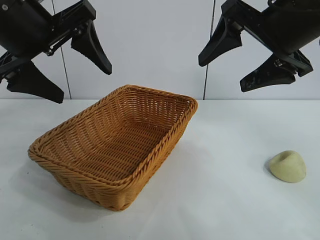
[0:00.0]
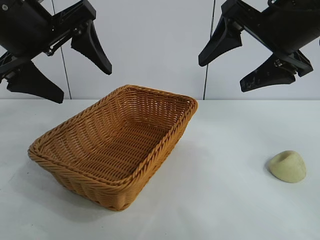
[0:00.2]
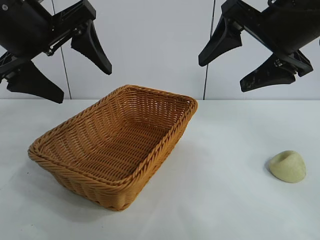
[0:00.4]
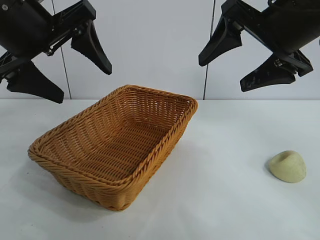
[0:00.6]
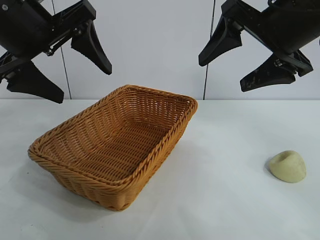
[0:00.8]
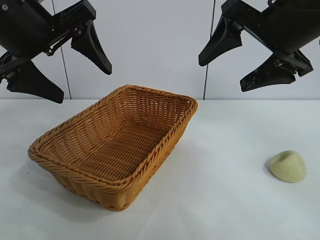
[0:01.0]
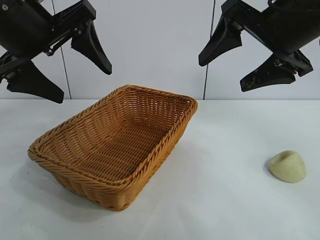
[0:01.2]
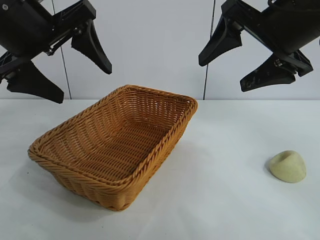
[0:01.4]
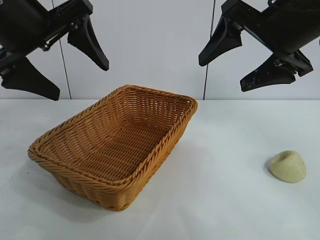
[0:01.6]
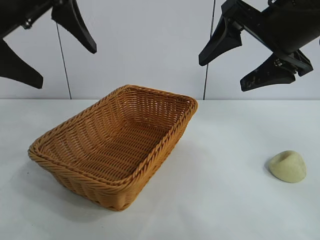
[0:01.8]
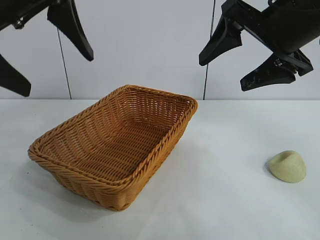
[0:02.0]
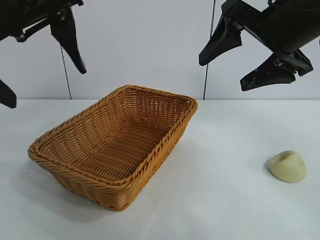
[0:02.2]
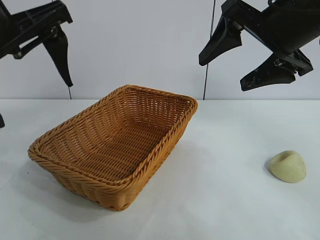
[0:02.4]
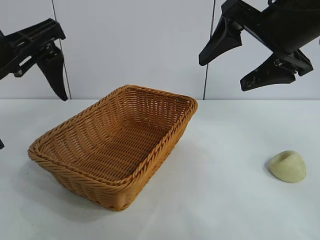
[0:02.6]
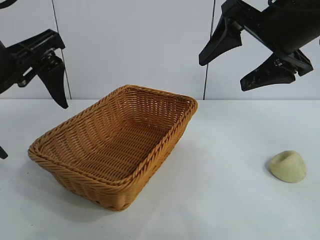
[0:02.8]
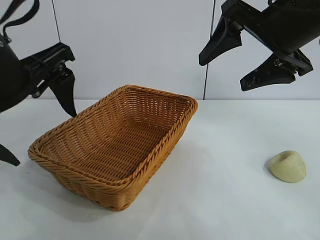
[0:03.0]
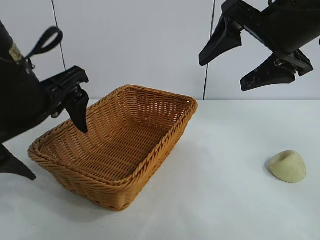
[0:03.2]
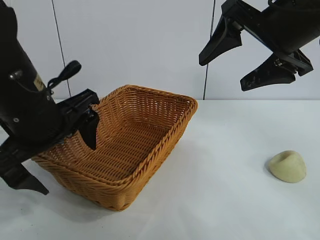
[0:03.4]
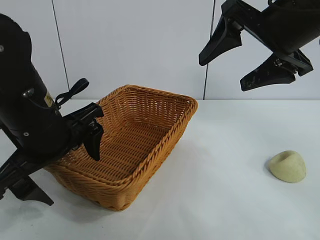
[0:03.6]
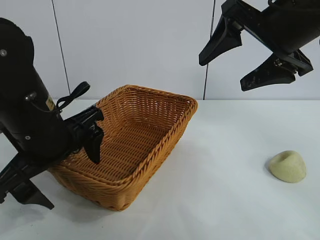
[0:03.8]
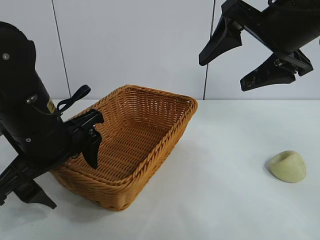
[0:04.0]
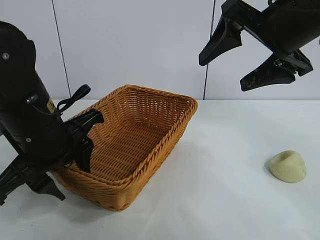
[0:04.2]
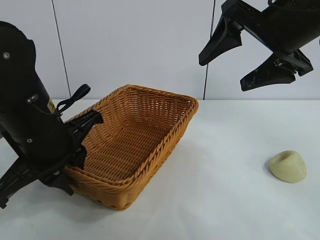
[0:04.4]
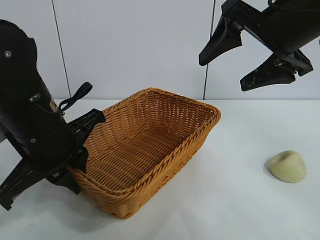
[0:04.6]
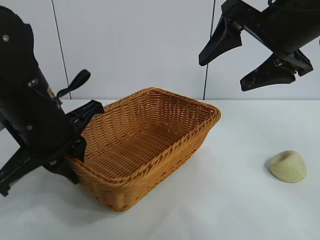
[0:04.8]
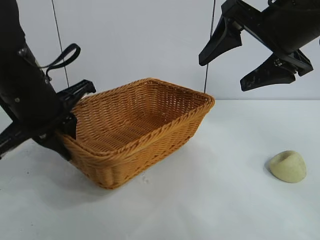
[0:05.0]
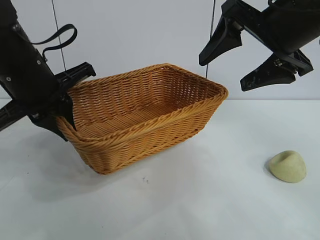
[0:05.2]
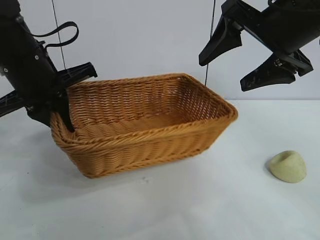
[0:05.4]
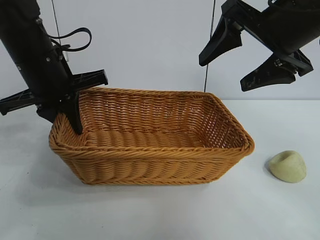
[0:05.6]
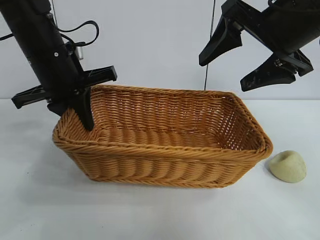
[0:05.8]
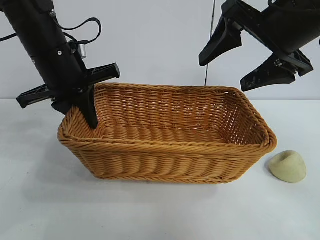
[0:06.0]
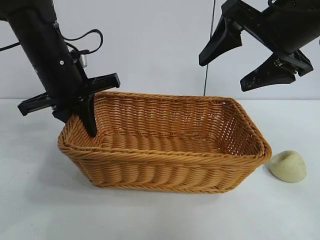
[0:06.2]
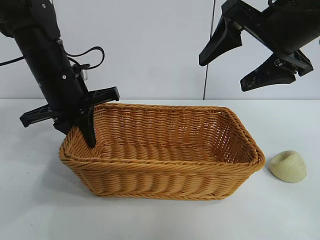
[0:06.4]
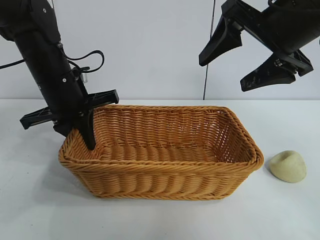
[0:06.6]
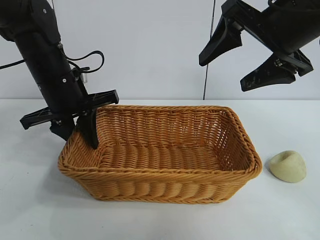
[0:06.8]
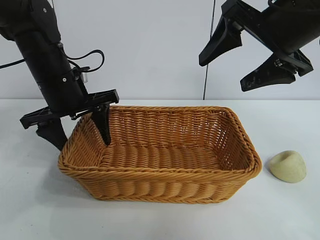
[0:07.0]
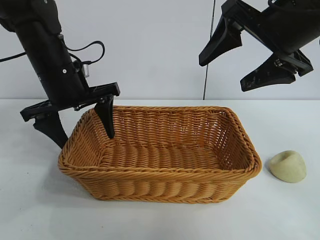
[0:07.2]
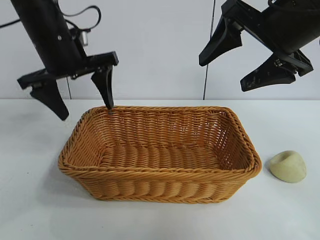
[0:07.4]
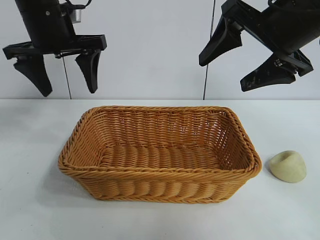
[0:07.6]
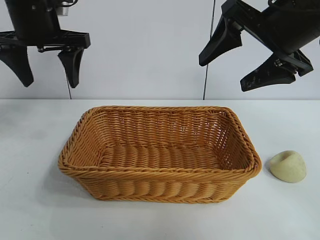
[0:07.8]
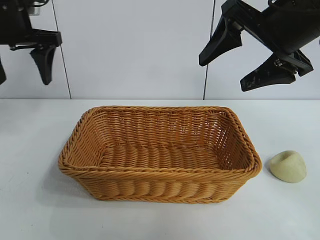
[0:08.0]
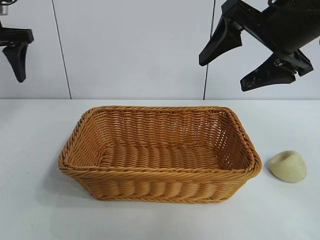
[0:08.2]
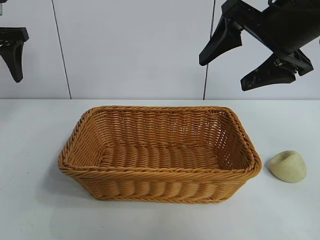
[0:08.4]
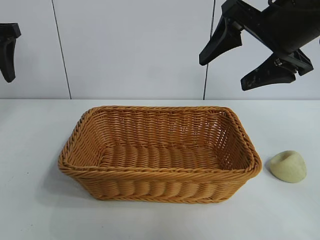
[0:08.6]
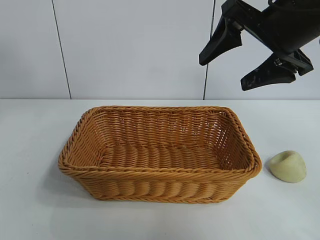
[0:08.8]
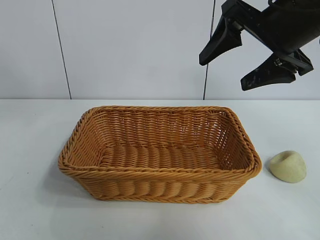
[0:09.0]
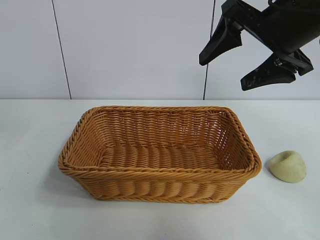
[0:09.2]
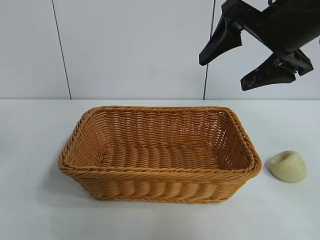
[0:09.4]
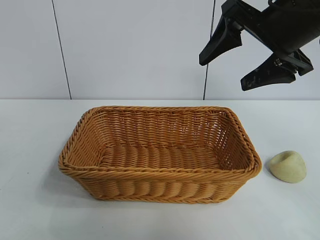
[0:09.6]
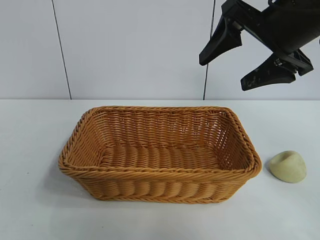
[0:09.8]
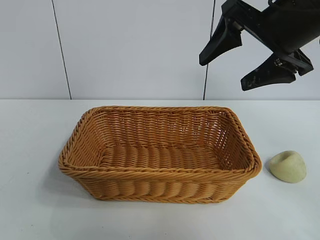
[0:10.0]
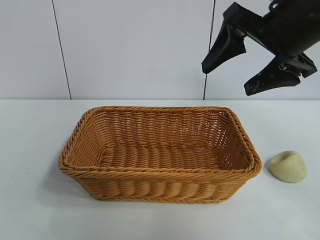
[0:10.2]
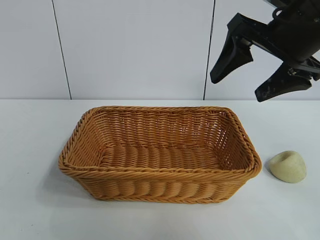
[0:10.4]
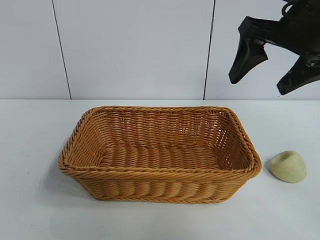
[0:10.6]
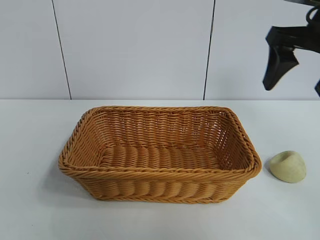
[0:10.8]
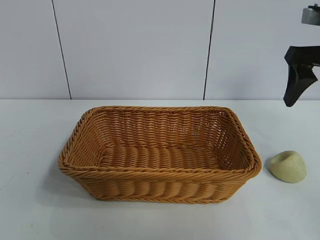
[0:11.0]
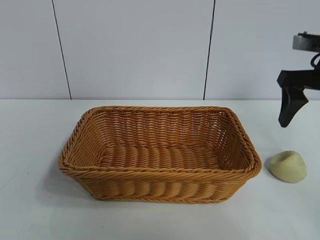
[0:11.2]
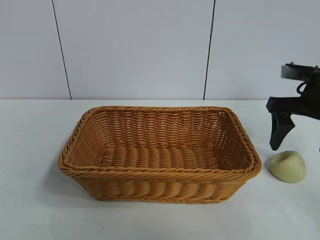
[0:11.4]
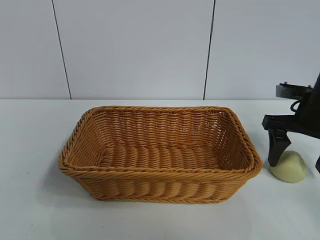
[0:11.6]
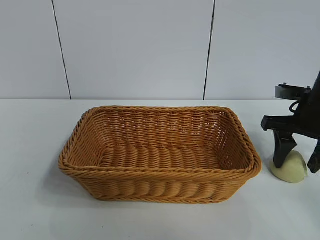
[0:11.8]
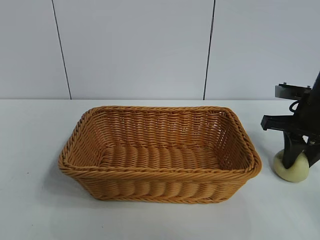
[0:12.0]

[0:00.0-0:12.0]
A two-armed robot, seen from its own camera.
Task of the whole recording: pick up the egg yolk pastry and put it into the basket.
Step, 1.4 to 4.4 s: Grasp the basket with left gripper.
Step, 4.6 to 7.0 s: Place the basket in the center of view with left gripper.

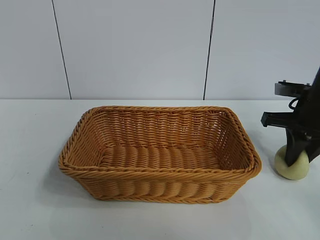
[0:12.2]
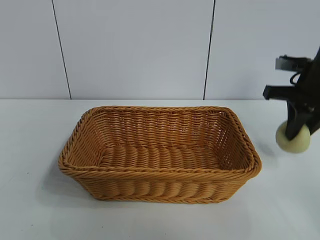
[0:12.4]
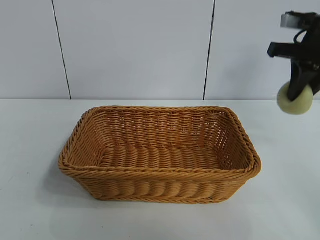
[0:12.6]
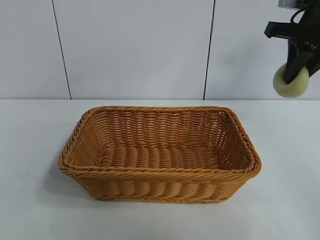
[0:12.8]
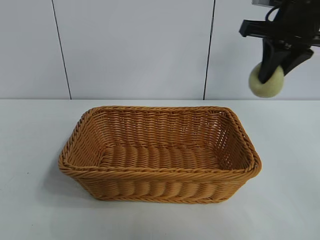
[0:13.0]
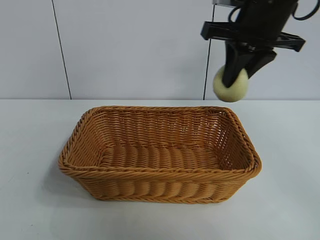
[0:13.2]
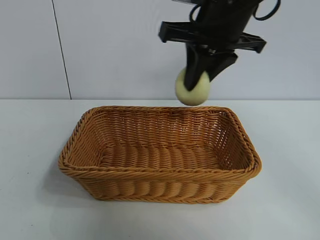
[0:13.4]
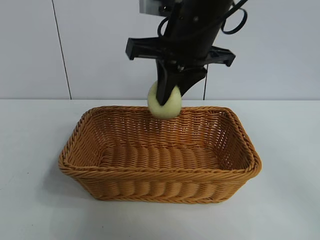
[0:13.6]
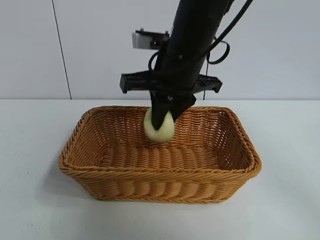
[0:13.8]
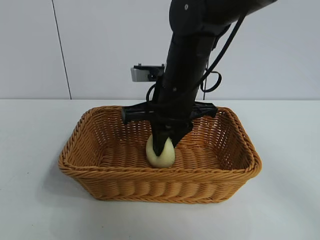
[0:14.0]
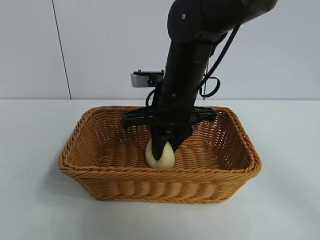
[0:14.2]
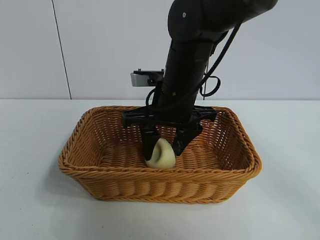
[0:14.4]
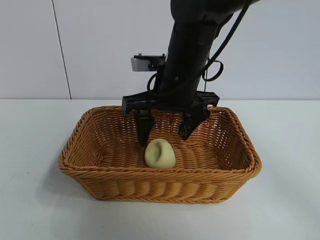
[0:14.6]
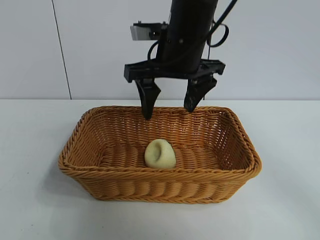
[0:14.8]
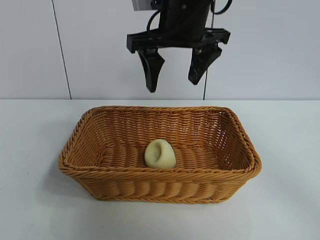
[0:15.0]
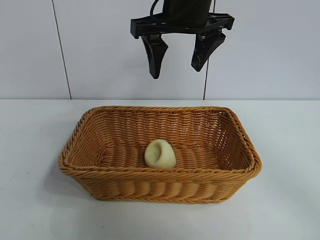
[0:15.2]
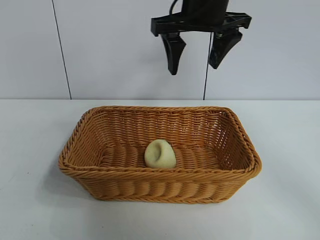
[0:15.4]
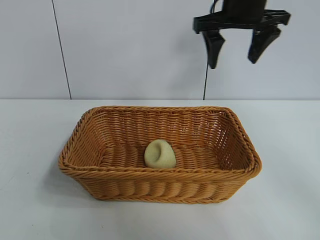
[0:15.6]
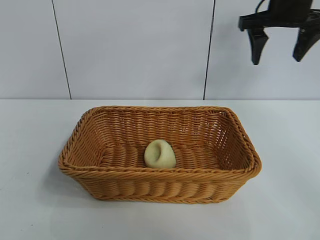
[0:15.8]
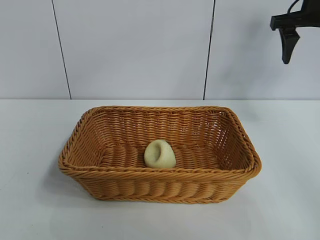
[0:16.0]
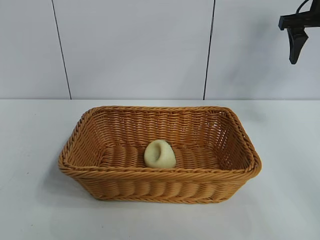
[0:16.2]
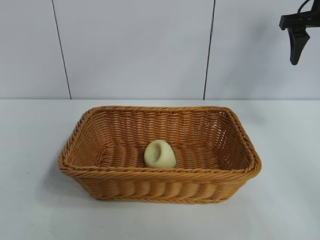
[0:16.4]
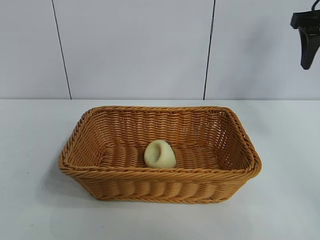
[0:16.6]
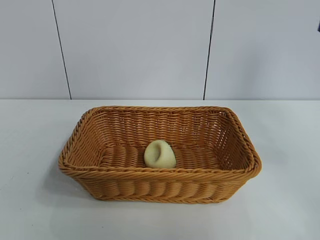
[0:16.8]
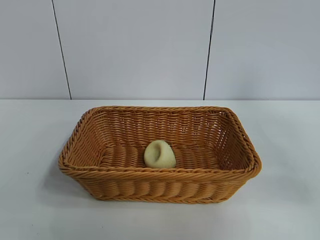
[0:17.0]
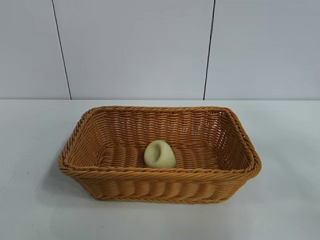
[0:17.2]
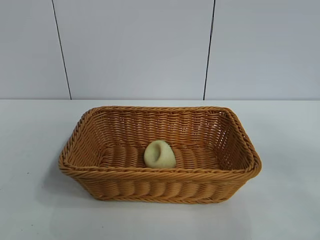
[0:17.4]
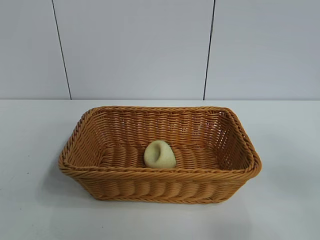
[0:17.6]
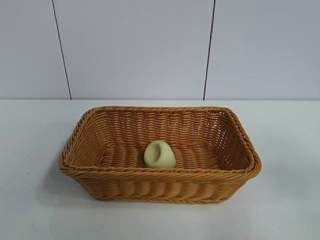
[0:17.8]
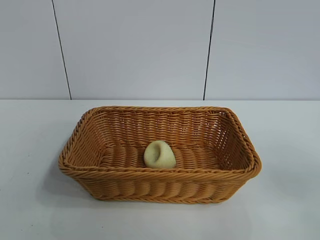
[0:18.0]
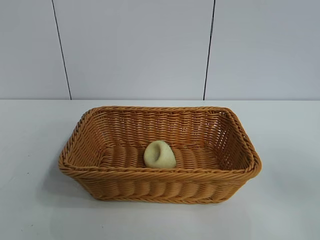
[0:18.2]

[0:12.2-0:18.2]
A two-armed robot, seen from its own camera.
Task of the whole recording: pick up the egg yolk pastry and put it into the basket.
Step, 12.2 to 14.4 s: Place the egg yolk pastry in the basket with right gripper.

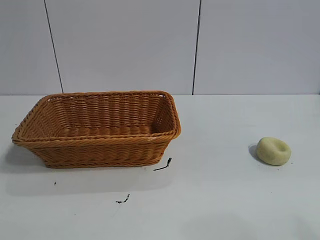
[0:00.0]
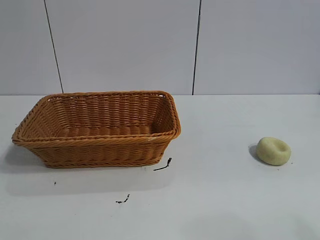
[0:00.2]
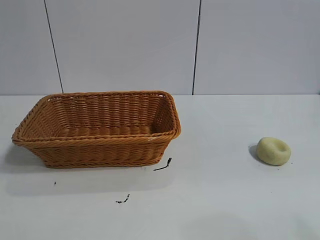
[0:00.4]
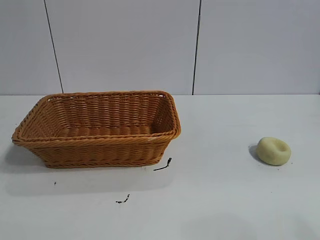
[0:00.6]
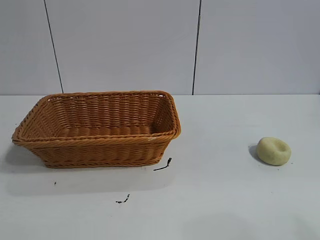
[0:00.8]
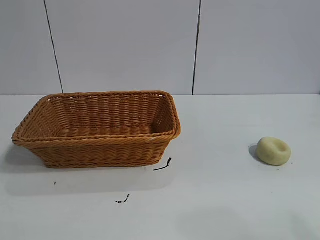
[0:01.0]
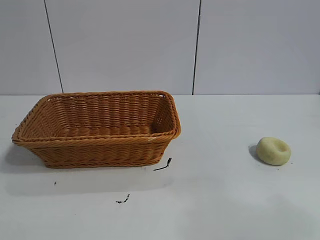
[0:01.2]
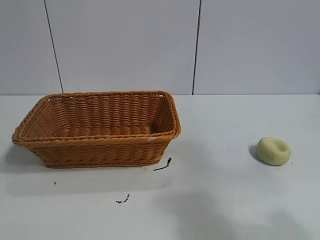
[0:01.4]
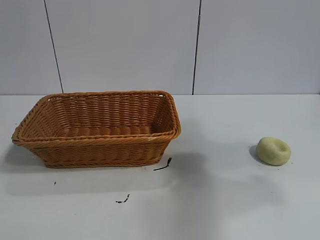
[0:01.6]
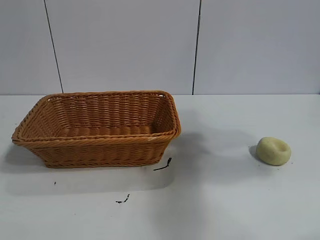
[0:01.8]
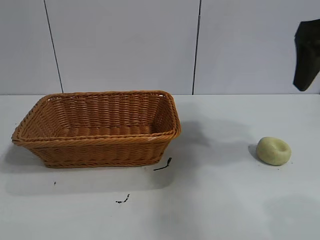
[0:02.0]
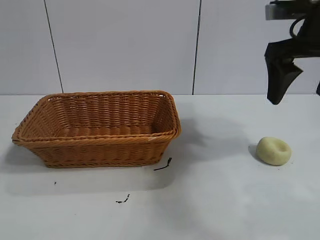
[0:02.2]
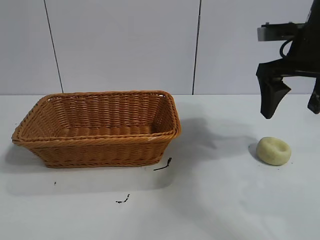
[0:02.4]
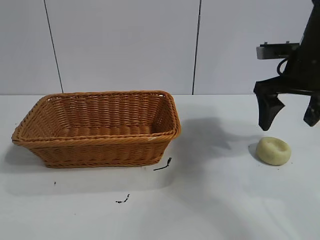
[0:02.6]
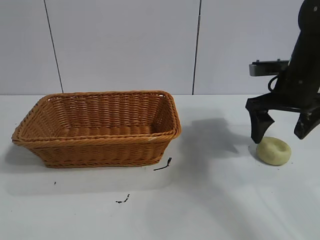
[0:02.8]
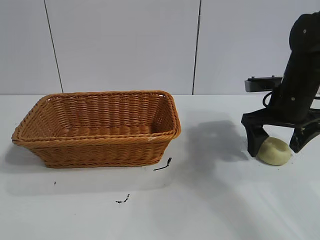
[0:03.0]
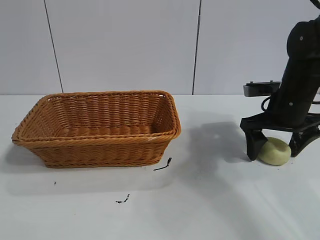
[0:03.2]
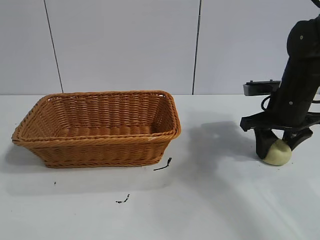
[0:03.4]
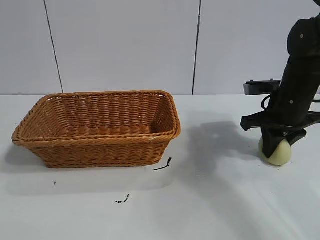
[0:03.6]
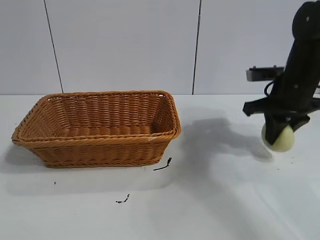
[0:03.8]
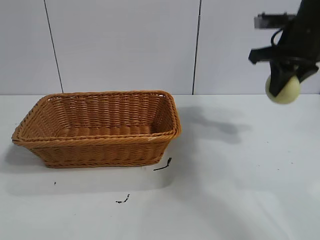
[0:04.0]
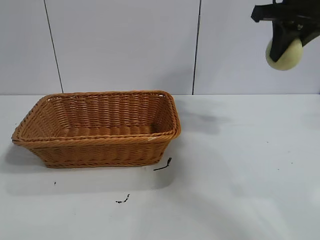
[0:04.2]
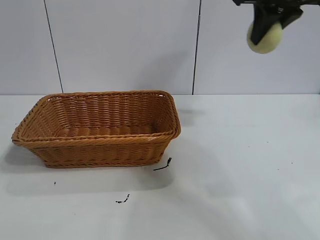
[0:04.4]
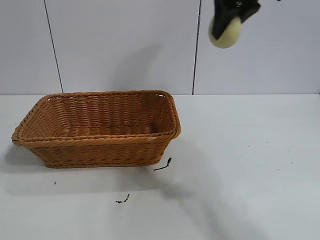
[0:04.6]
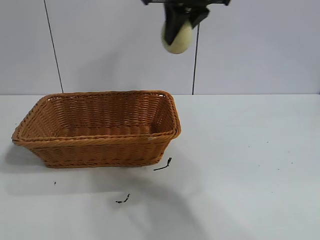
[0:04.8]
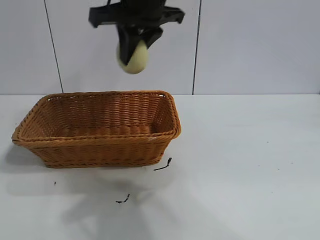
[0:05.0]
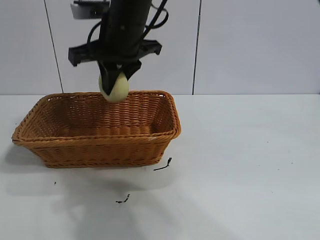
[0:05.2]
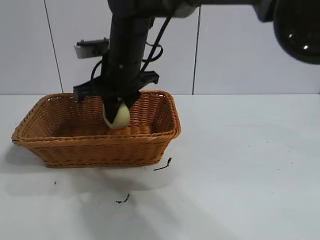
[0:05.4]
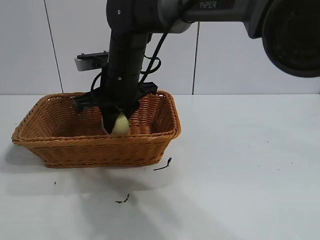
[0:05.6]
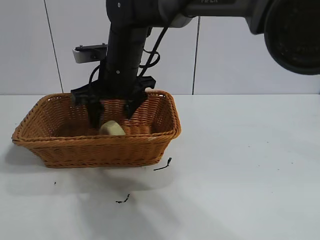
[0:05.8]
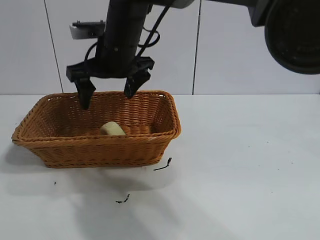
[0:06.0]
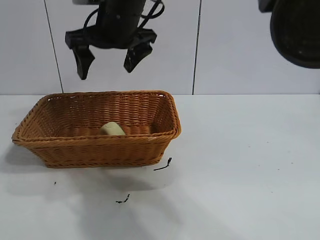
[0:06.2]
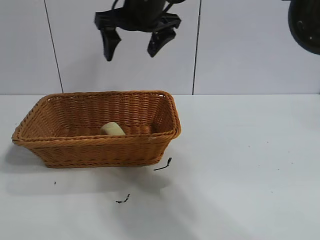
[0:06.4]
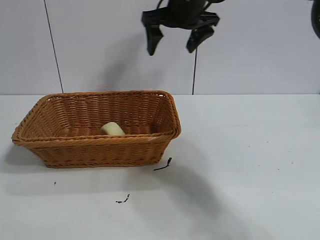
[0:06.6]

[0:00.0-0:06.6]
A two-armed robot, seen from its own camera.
Task of the whole recording: pick up the egg yolk pastry and put it into the basket.
Step, 1.0 to 3.4 s: Grasp egg yolk pastry with right gripper.
Step, 3.8 to 5.8 s: Place the egg yolk pastry in the basket with right gripper.
